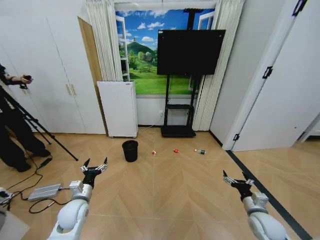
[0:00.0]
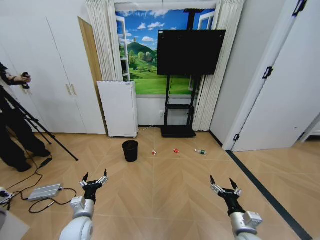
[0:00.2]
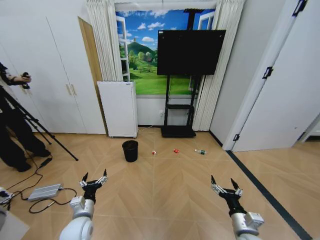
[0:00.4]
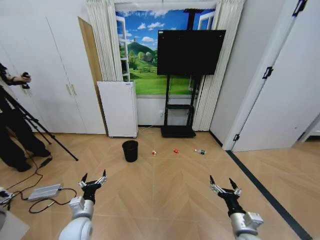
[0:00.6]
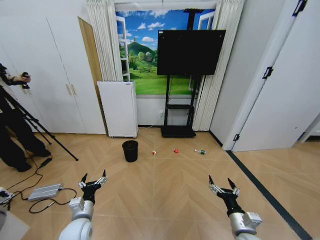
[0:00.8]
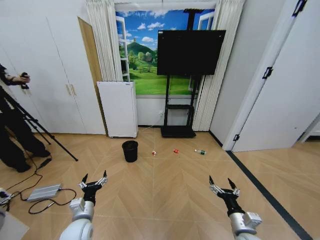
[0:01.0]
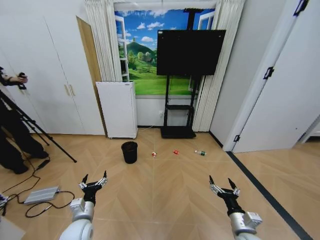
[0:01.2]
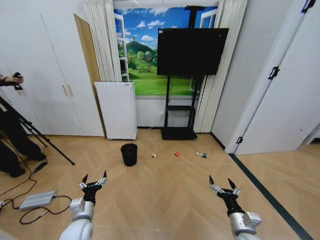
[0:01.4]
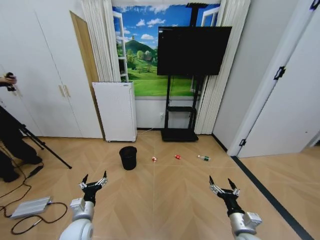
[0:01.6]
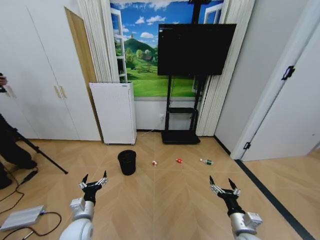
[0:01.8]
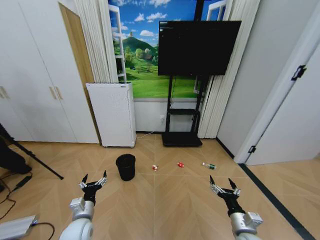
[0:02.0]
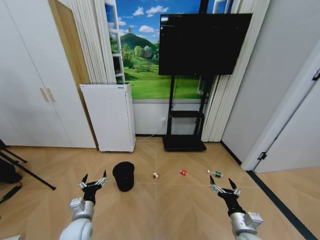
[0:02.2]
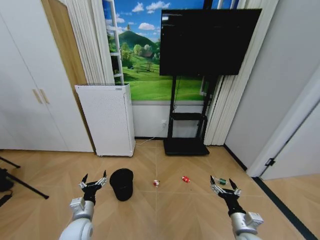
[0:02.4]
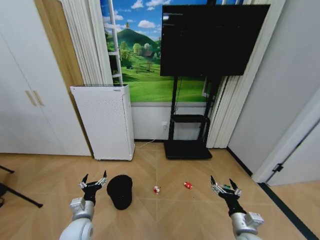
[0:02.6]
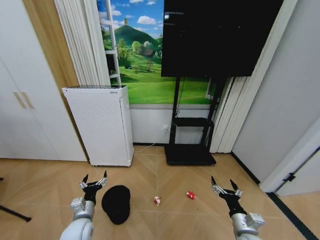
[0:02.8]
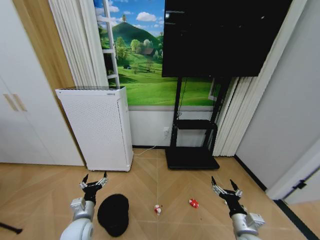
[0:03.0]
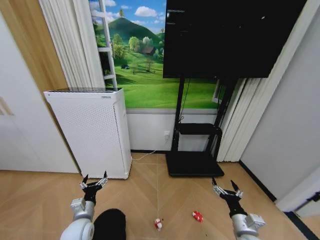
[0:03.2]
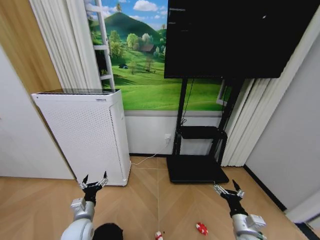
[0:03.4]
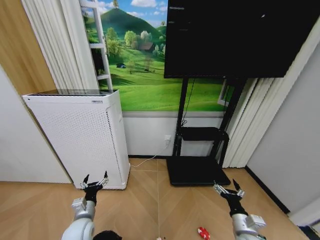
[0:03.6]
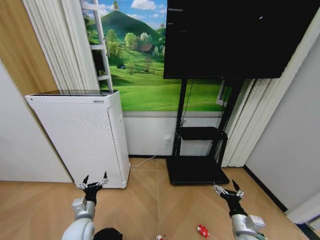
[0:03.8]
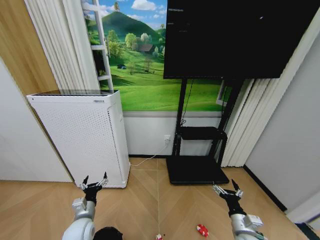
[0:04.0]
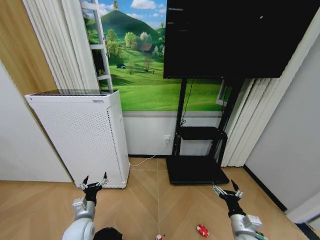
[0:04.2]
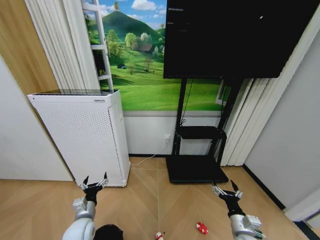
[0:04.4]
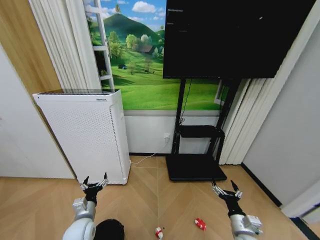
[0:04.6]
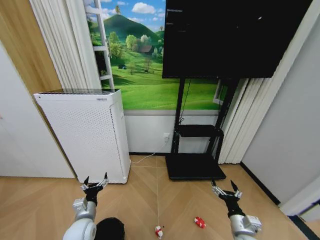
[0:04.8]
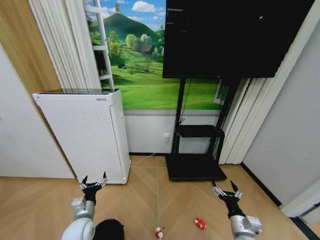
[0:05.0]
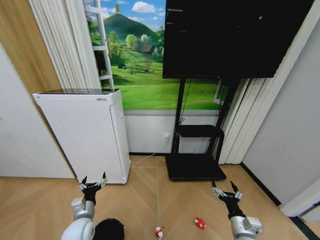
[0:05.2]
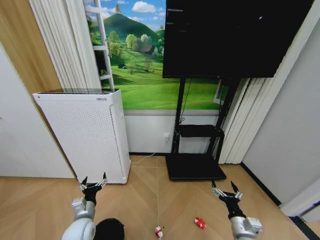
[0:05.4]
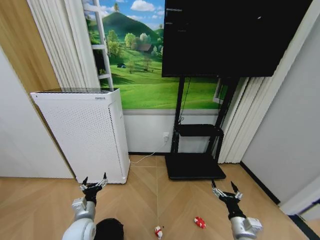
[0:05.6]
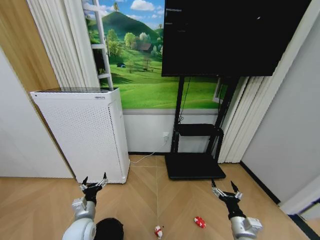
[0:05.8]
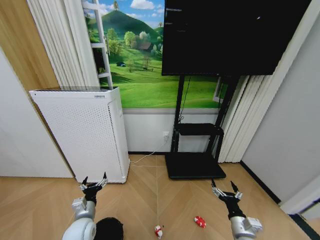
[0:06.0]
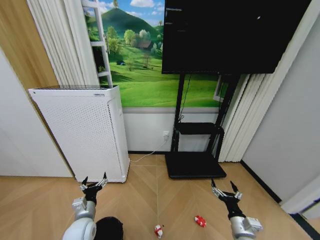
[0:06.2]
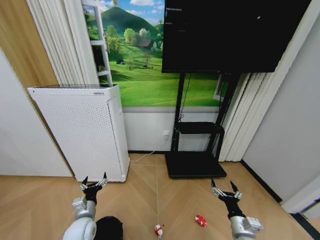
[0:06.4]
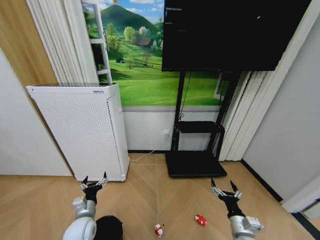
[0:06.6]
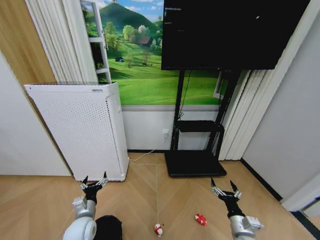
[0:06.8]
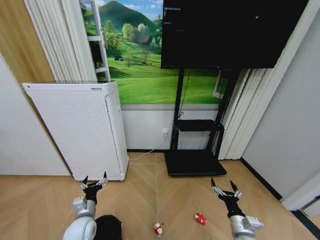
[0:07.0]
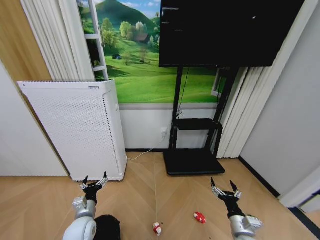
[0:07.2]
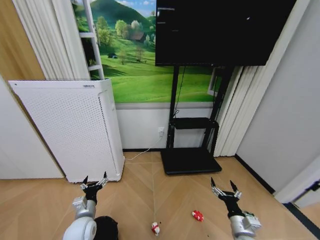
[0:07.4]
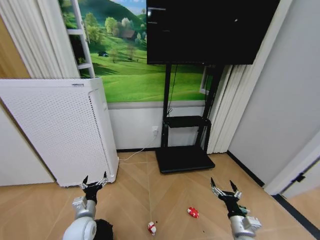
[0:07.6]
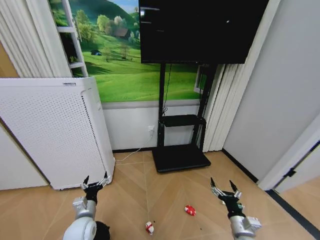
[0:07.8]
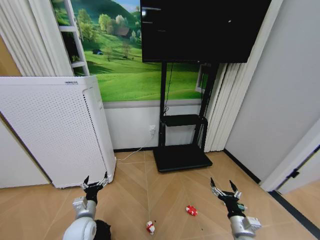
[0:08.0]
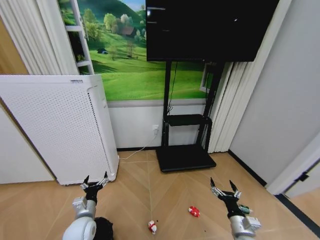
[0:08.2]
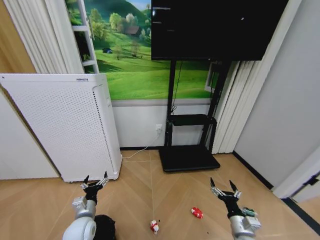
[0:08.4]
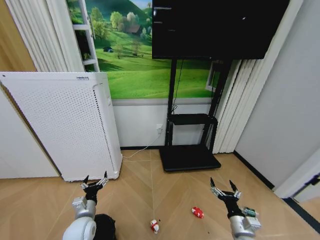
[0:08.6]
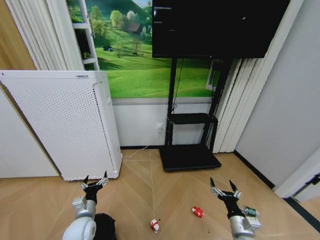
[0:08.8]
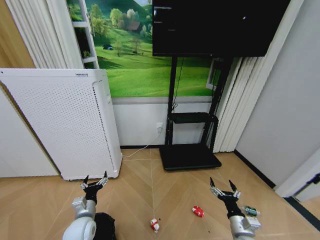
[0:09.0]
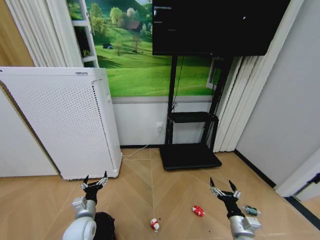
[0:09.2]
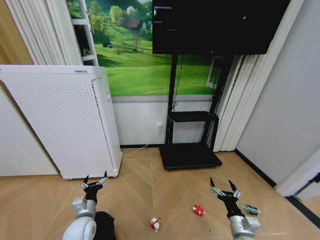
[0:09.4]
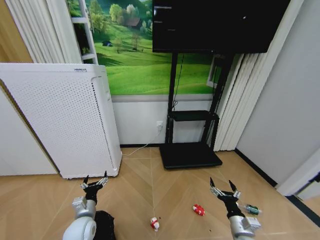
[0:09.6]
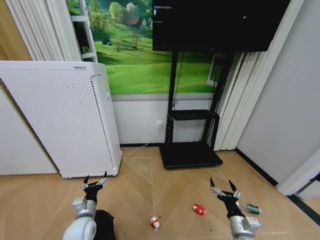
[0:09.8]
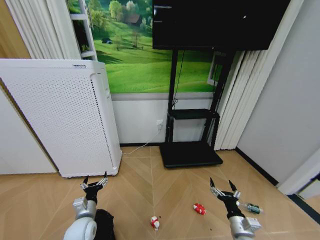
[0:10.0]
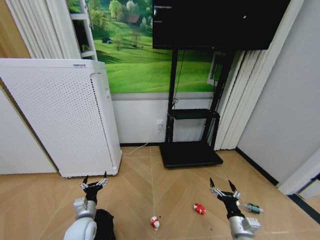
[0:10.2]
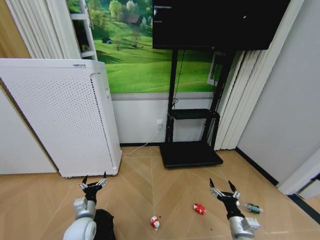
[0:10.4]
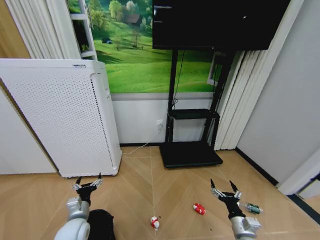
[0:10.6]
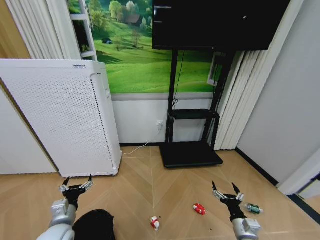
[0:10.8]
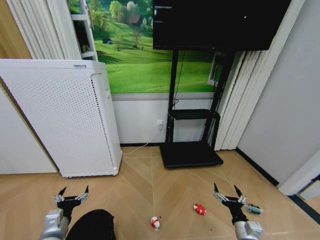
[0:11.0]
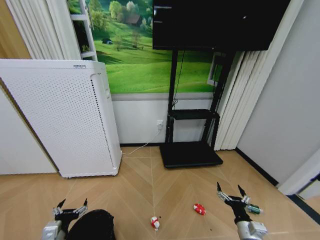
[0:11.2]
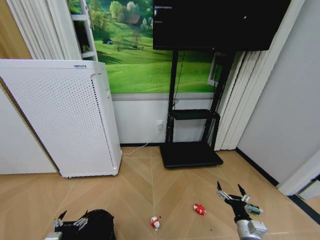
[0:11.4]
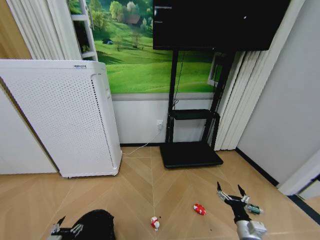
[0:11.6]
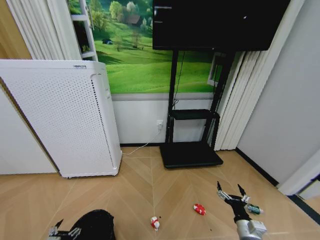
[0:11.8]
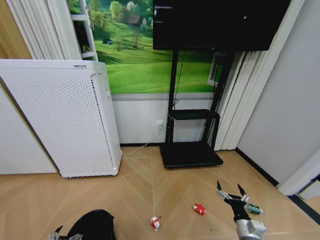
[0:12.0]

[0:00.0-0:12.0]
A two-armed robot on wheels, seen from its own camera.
Task of the whole recording: Pick up the trash bin and place the garbage on the floor into it.
0:04.4 to 0:06.0: Both grippers stay put.
0:09.0 to 0:10.4: Both grippers stay about where they are.
0:10.4 to 0:12.0: The left gripper heads backward and to the left, covering about 15 cm.

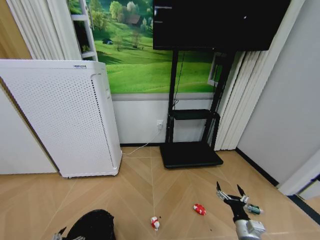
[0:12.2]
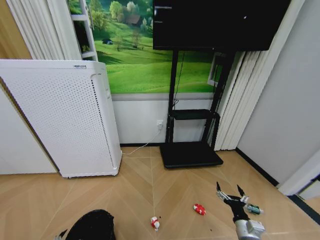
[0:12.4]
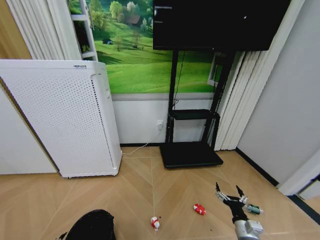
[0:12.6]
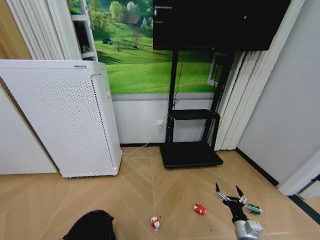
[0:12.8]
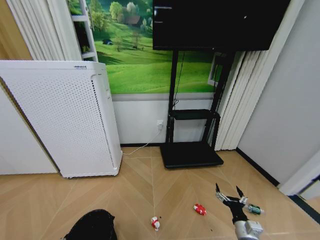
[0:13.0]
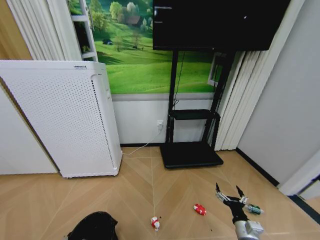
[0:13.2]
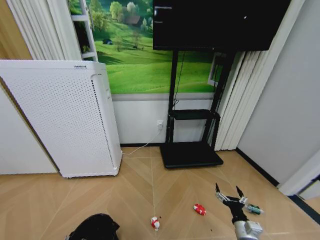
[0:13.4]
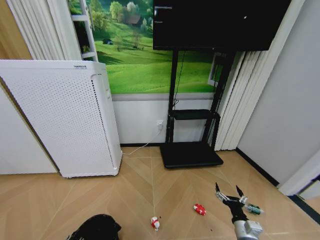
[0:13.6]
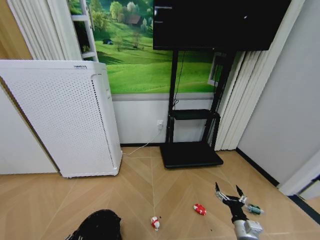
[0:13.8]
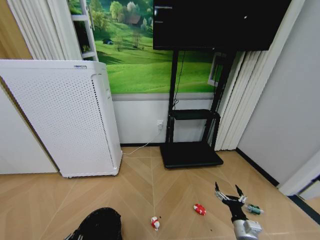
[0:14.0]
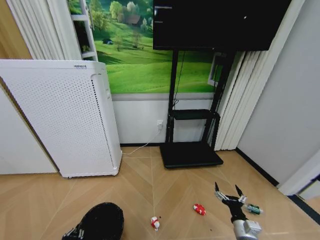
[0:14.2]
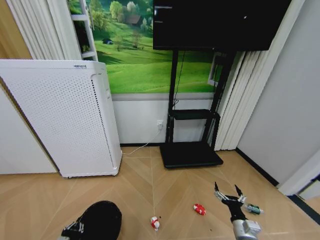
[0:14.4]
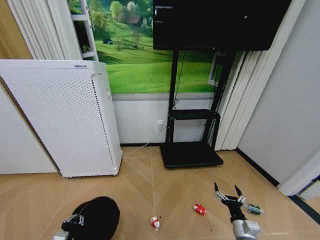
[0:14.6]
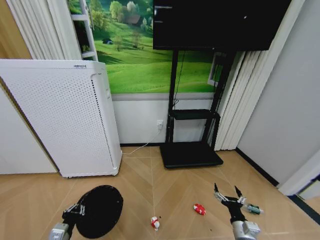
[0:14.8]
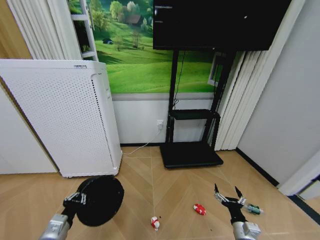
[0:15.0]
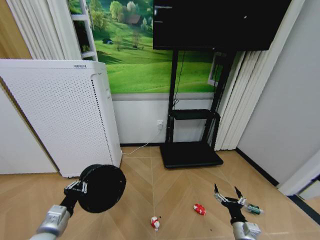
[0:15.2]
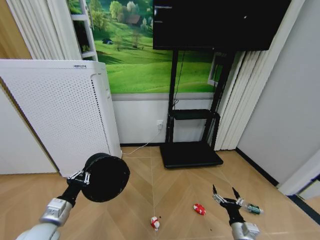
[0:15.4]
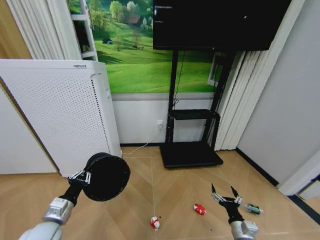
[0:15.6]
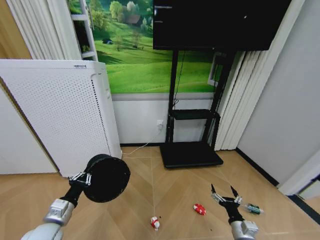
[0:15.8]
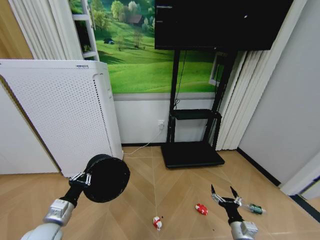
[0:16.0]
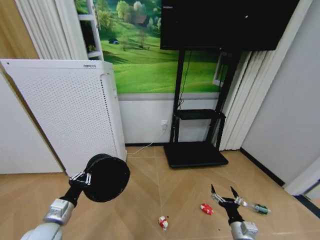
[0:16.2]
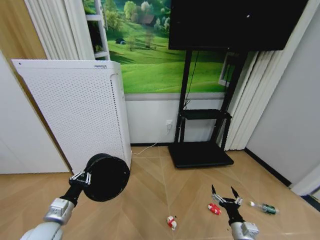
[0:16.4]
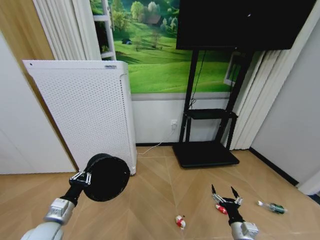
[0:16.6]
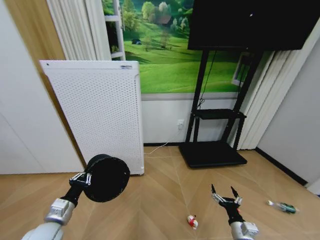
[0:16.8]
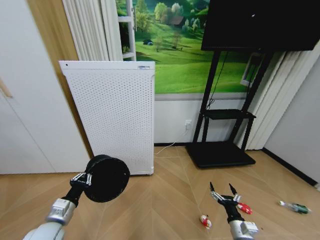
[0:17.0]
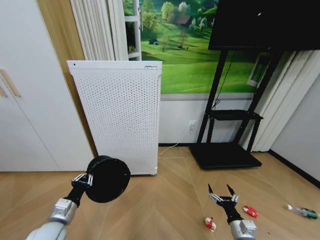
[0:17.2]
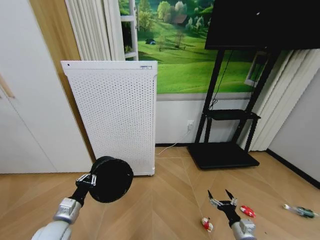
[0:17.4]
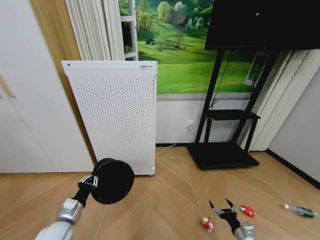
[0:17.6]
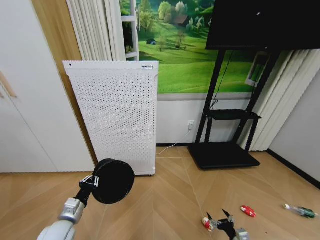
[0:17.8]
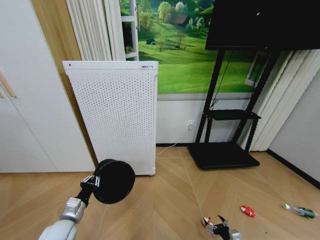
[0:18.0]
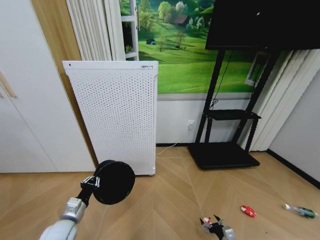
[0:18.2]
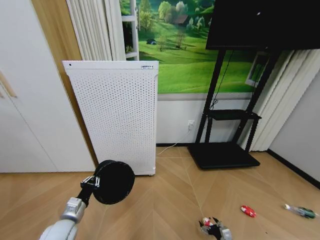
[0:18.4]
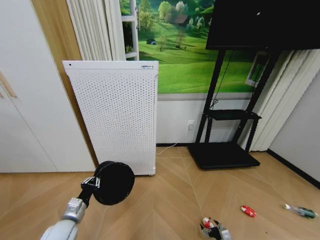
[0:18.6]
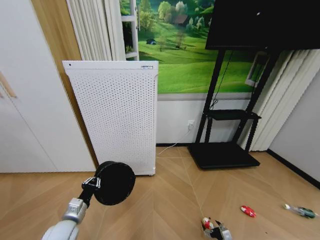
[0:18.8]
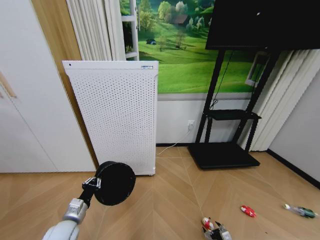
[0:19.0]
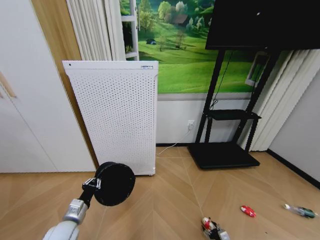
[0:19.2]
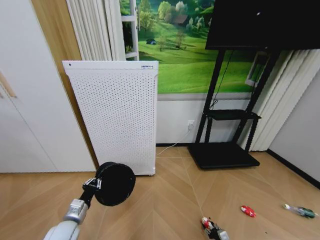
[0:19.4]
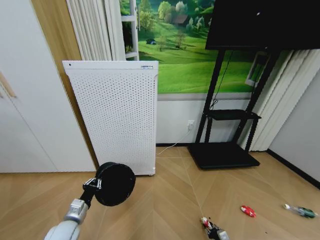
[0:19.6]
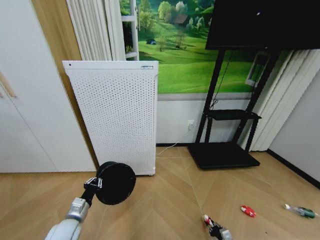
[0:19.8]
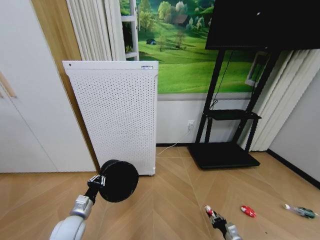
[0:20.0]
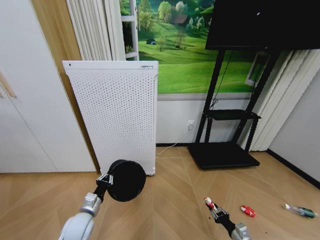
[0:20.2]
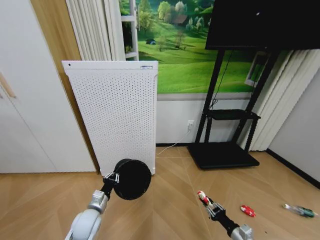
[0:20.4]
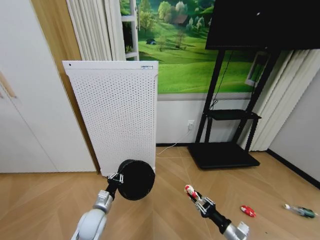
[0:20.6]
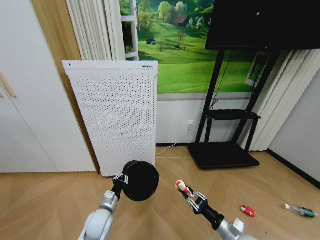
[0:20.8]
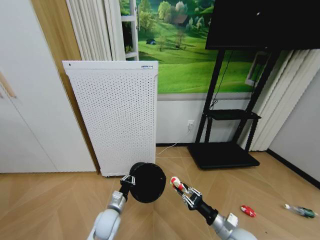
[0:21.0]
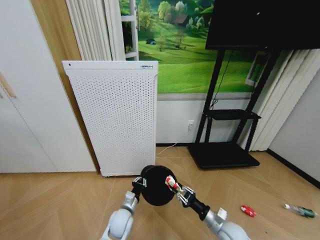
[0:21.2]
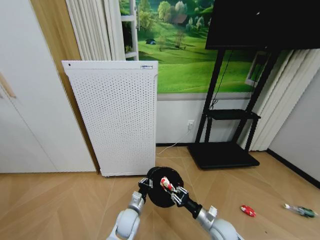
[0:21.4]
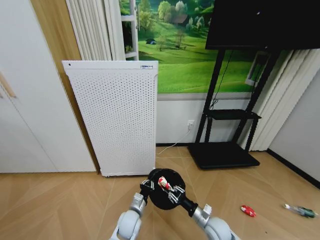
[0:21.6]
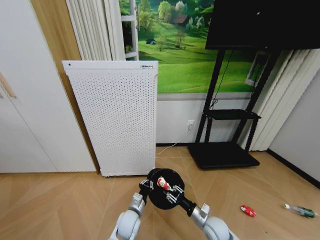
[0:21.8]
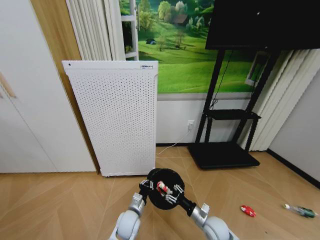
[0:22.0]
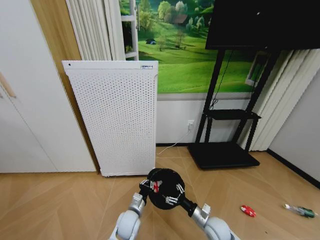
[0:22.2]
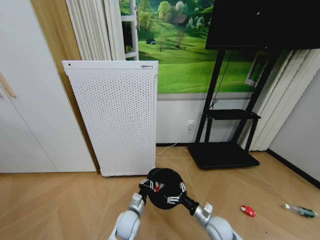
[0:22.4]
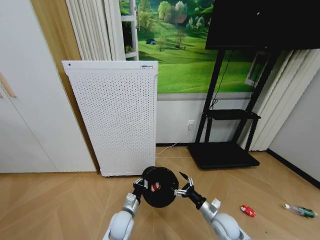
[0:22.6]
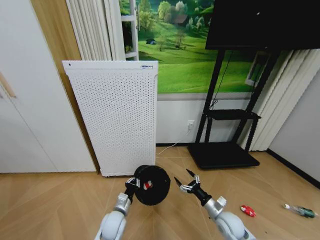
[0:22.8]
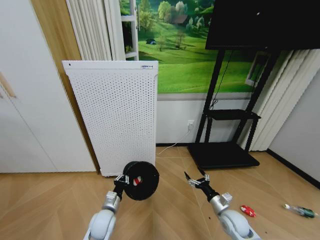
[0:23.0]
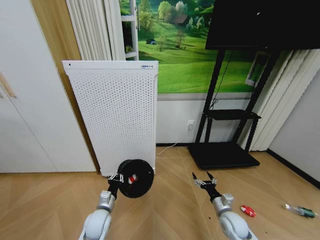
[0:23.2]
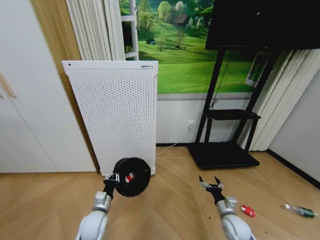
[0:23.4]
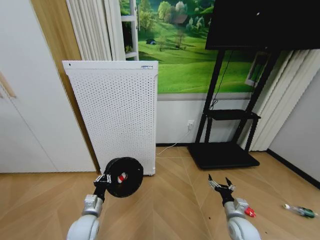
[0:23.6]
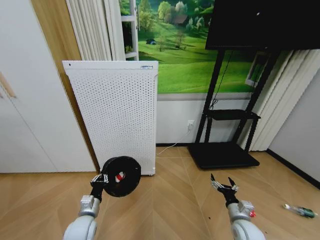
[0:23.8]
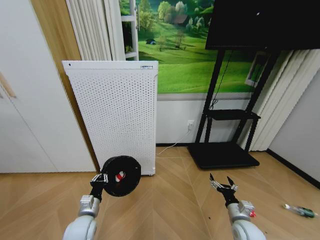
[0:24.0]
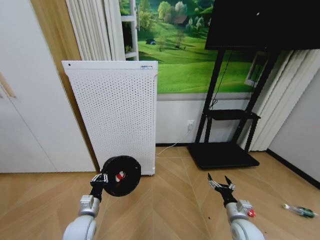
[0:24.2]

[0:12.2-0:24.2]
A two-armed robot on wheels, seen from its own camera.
Task of the whole recording: Pick up the trash bin and place the garbage on the floor into it.
0:12.2 to 0:13.8: The left gripper closes up.
0:13.8 to 0:15.2: The left gripper goes approximately 15 cm upward and forward.
0:16.6 to 0:18.2: The left gripper ends up about 5 cm from where it was. The right gripper goes some 15 cm downward.
0:18.2 to 0:19.8: The right gripper changes place by roughly 5 cm, and closes.
0:19.8 to 0:21.2: The right gripper heads upward and to the left, covering approximately 25 cm. The left gripper shifts roughly 20 cm to the right.
0:21.2 to 0:22.6: The right gripper opens up.
0:22.6 to 0:24.2: The left gripper is displaced to the left and upward by roughly 15 cm. The right gripper travels to the right by roughly 5 cm.
